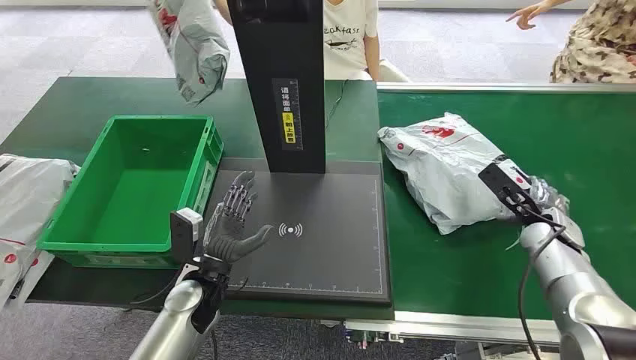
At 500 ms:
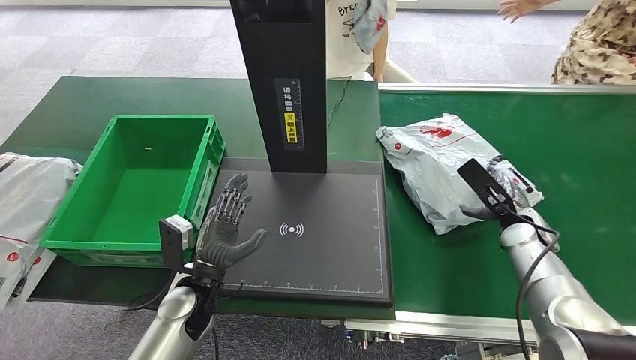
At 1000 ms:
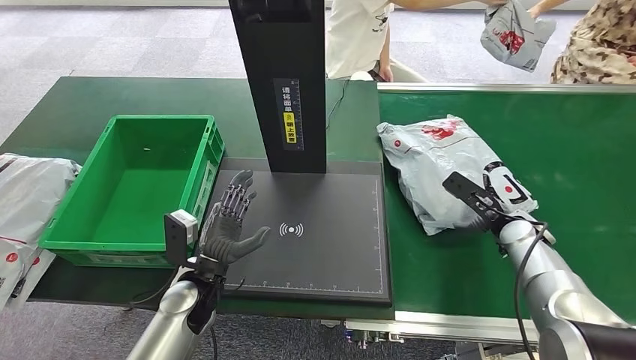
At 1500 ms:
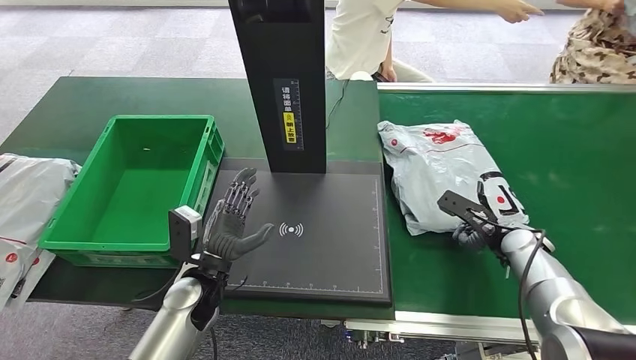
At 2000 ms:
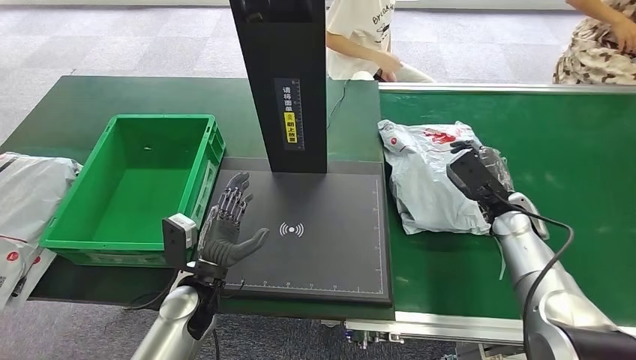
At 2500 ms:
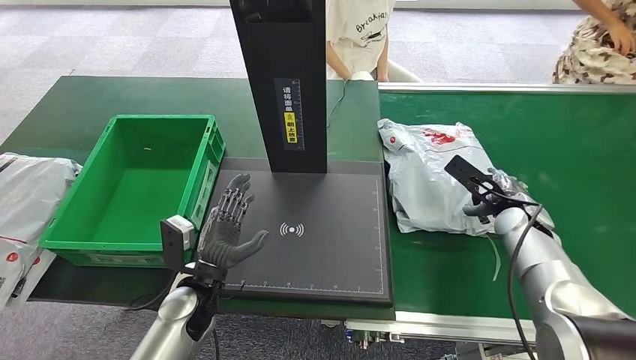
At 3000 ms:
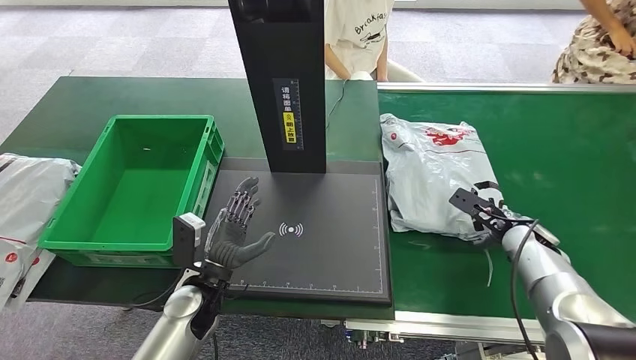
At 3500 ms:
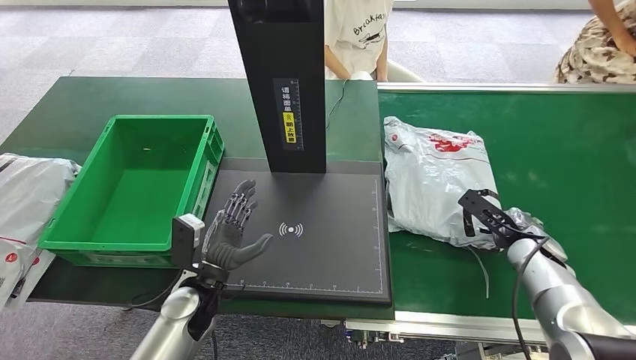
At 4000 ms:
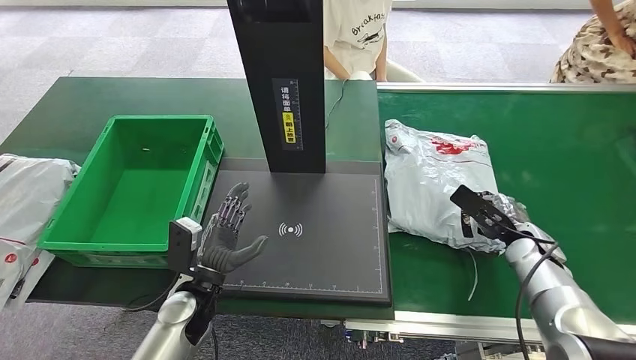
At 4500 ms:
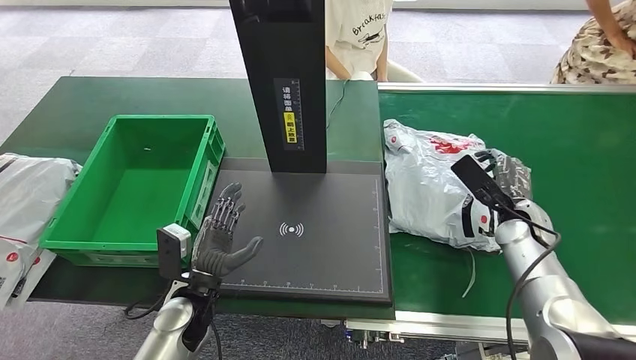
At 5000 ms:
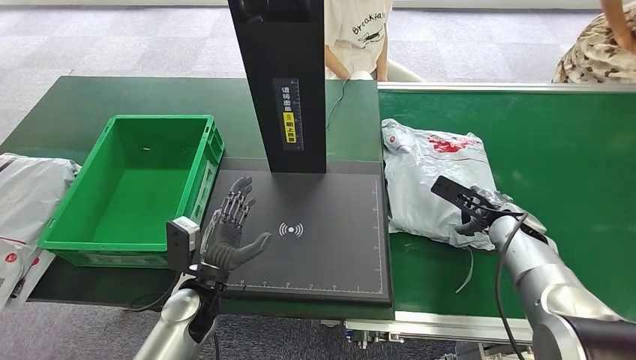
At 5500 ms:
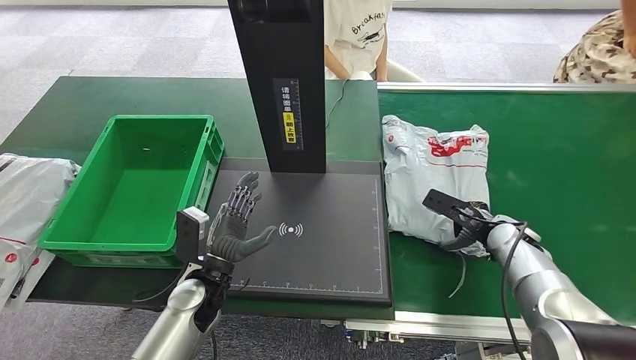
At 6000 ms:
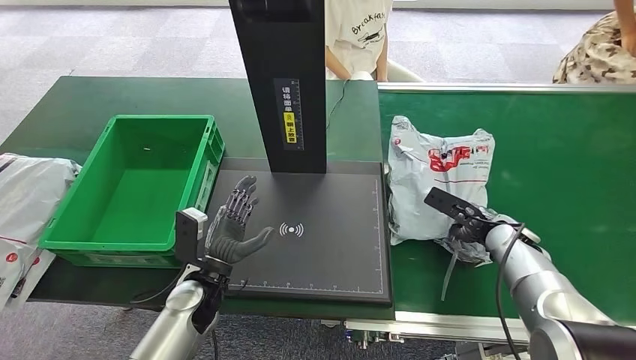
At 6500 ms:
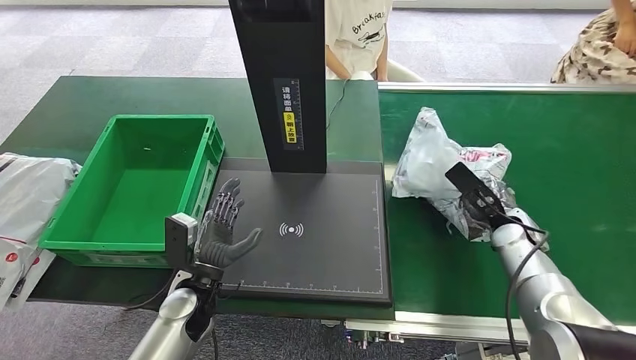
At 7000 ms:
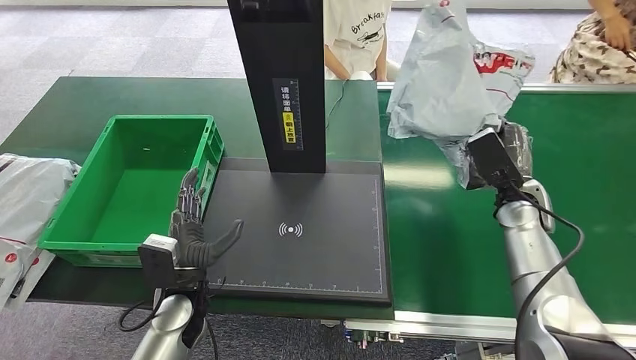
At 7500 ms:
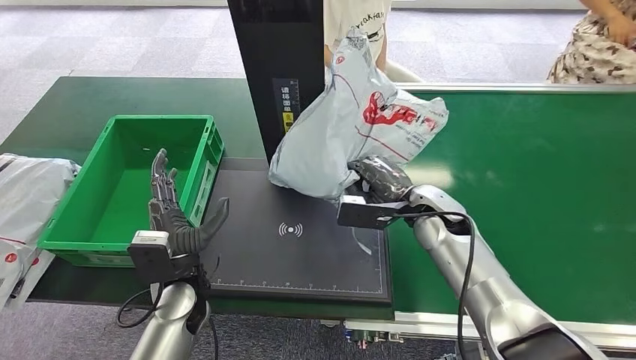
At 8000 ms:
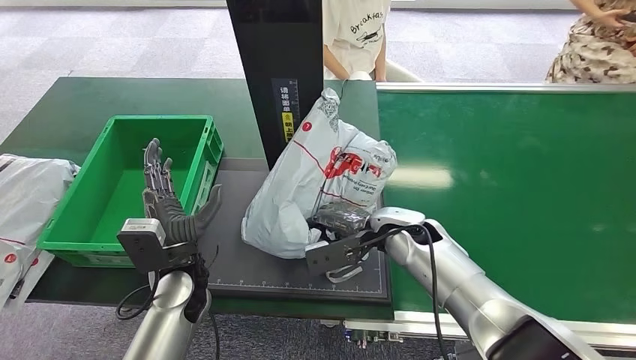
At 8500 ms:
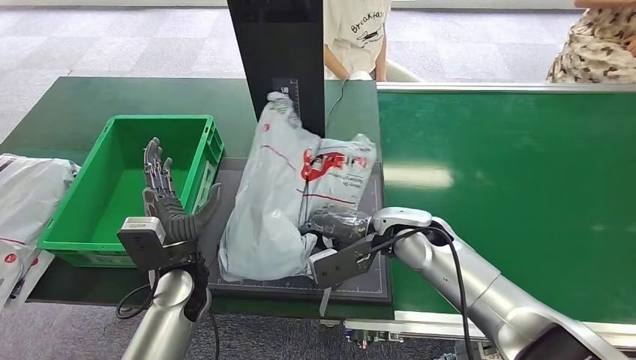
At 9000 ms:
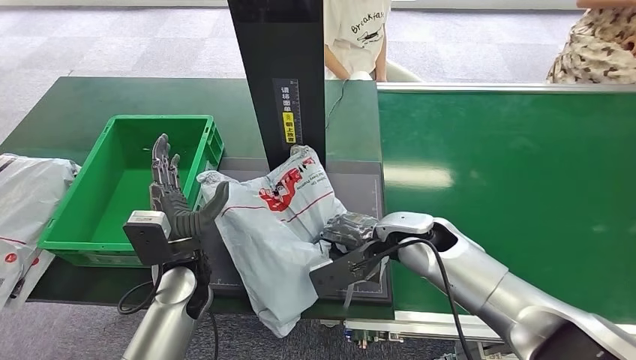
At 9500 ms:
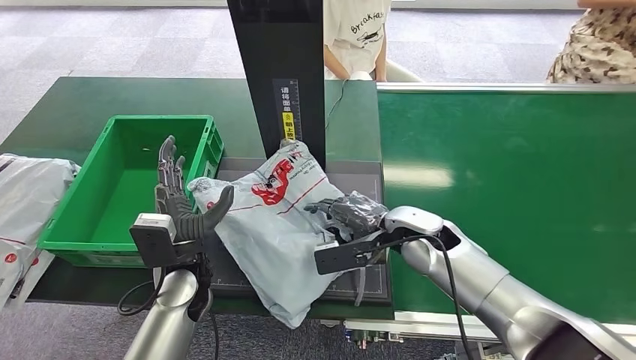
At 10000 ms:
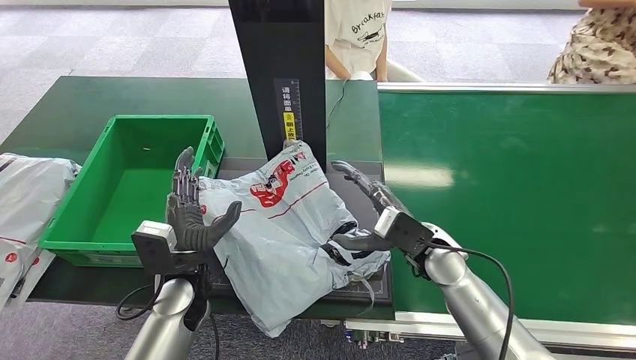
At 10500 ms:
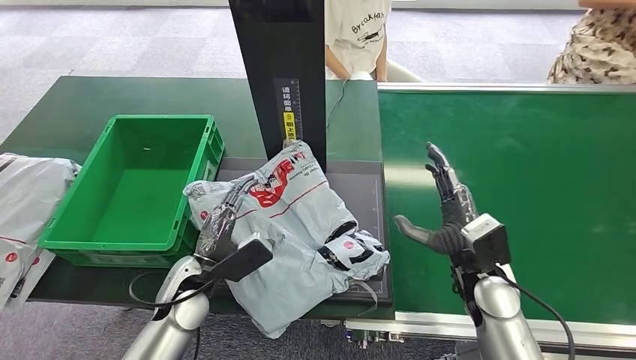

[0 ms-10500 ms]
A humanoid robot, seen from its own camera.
Step, 0 ms to 7000 ms: Pick up the package from the conveyor belt.
Step, 7500 ms to 10000 ms: Place the package onto the inbound machine.
2000 ms to 4000 ms: The right hand ends up approximately 5 cm from where it was.

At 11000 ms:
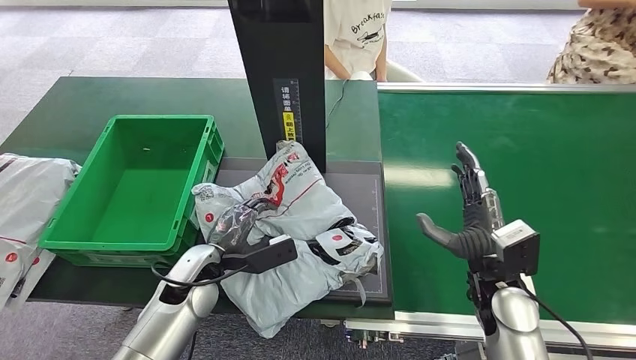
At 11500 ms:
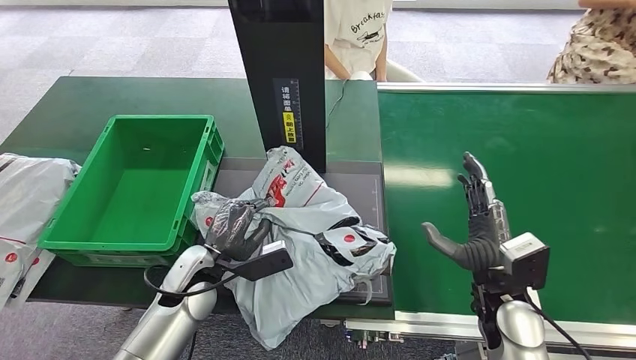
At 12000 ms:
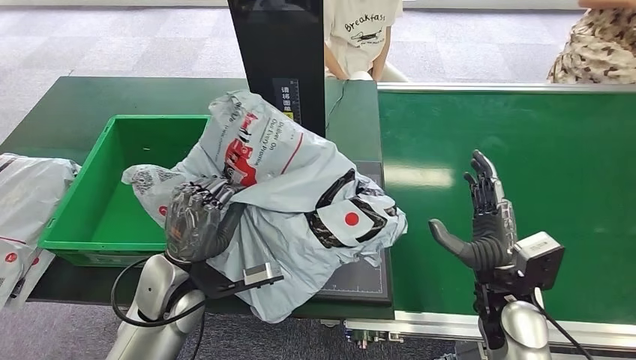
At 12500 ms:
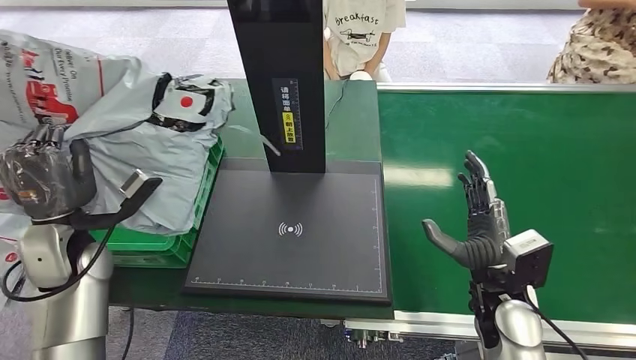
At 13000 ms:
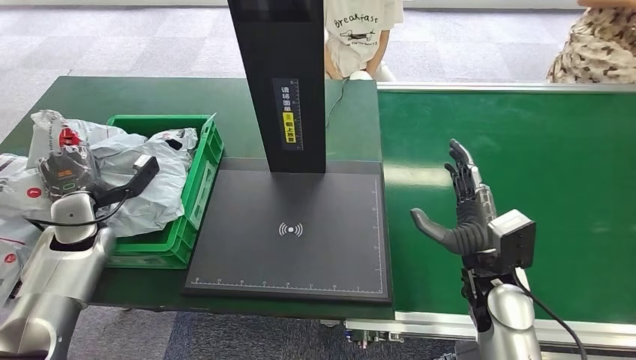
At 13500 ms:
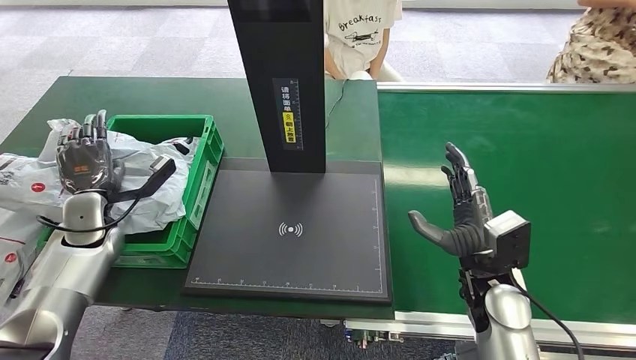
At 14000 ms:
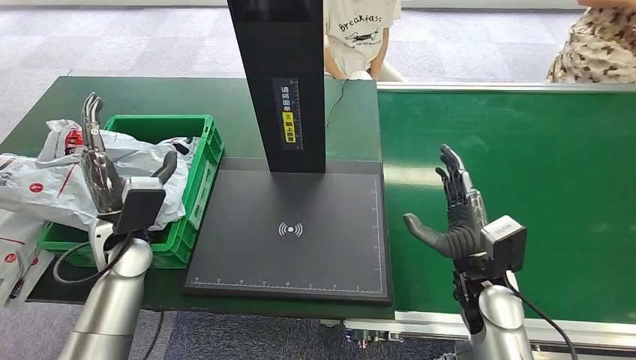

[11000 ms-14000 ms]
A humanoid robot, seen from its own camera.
Step, 12500 ms to 14000 ms: Place the package into the parcel locker.
